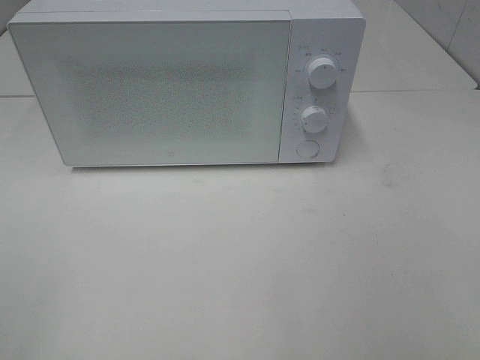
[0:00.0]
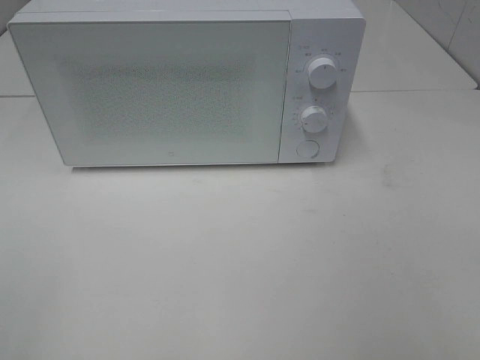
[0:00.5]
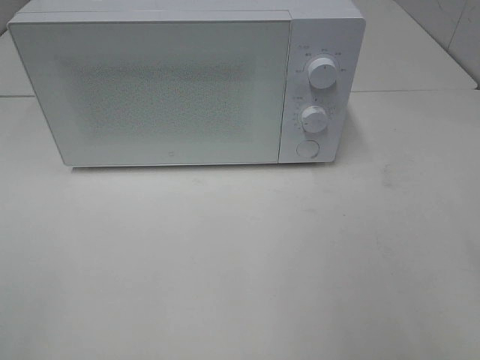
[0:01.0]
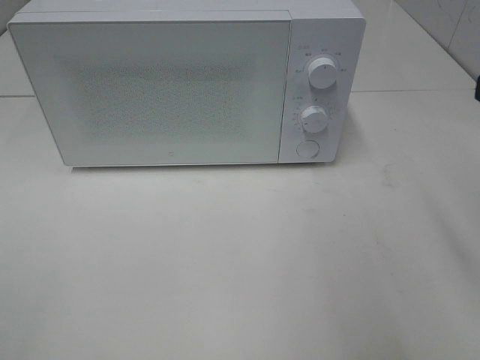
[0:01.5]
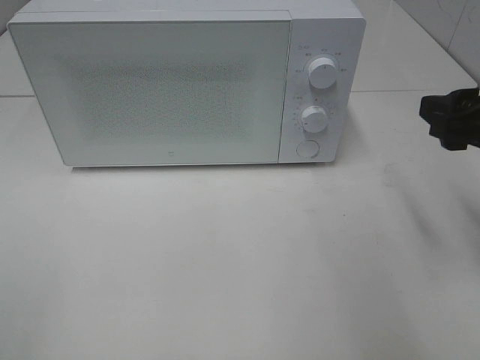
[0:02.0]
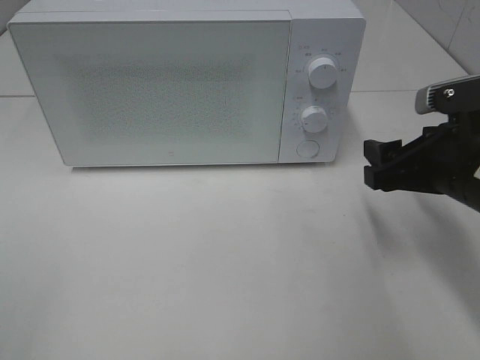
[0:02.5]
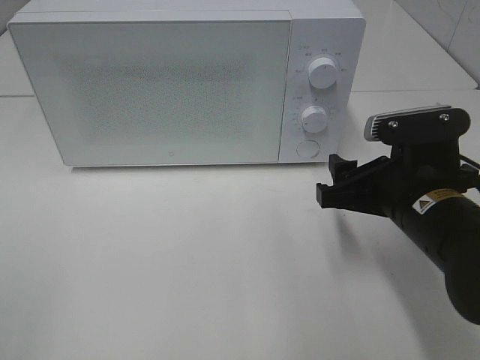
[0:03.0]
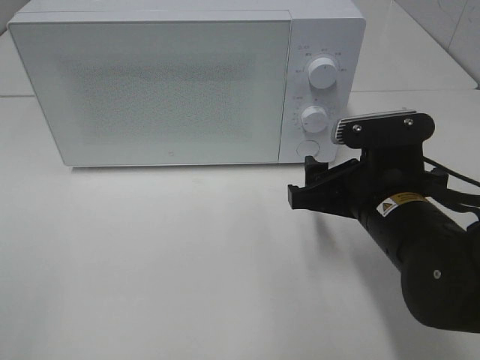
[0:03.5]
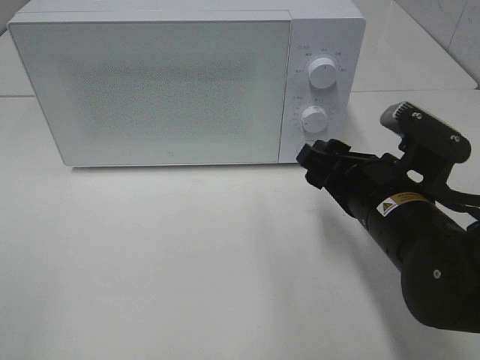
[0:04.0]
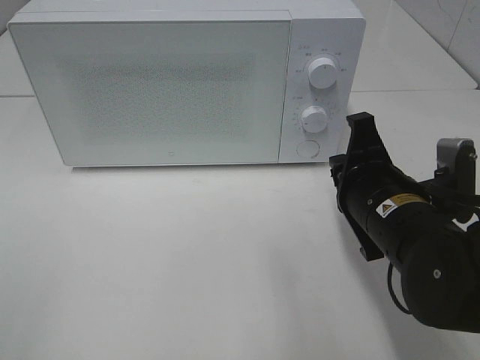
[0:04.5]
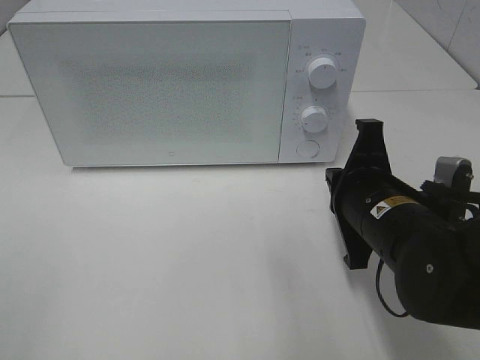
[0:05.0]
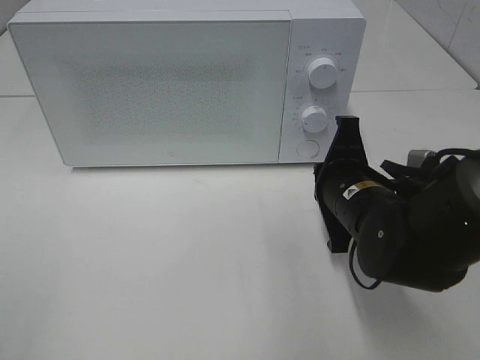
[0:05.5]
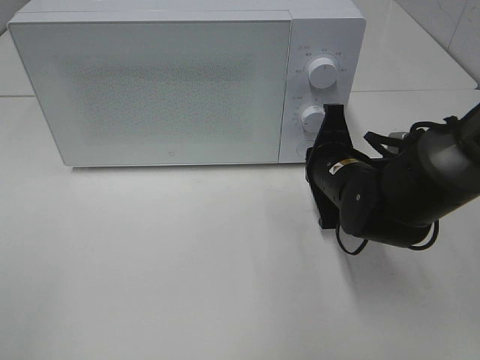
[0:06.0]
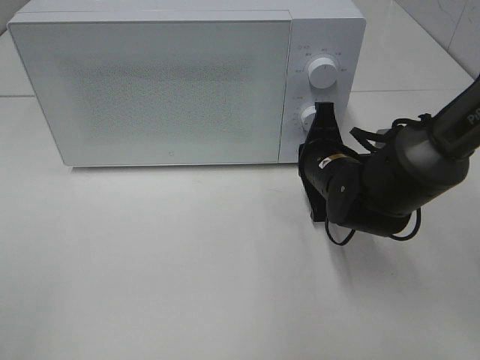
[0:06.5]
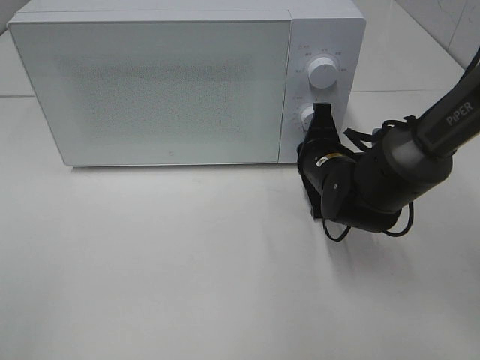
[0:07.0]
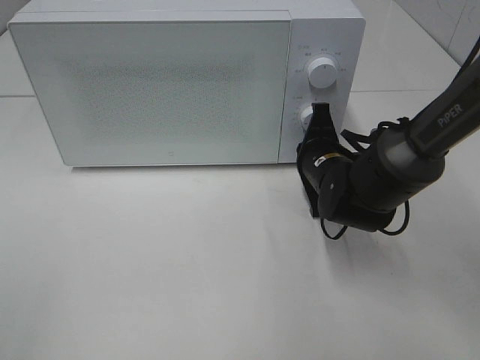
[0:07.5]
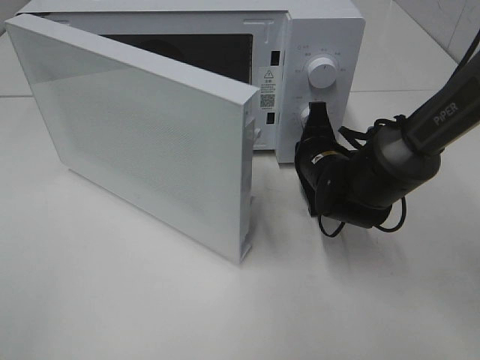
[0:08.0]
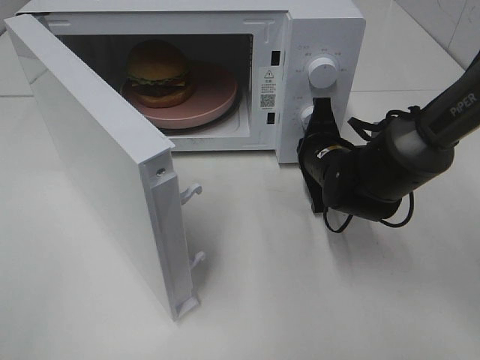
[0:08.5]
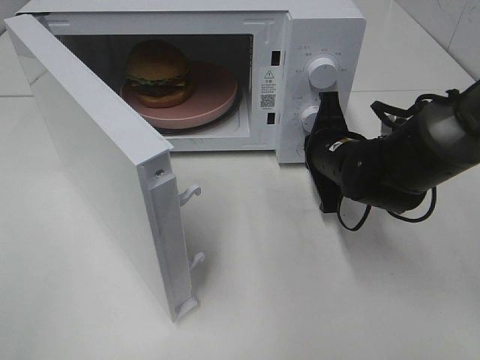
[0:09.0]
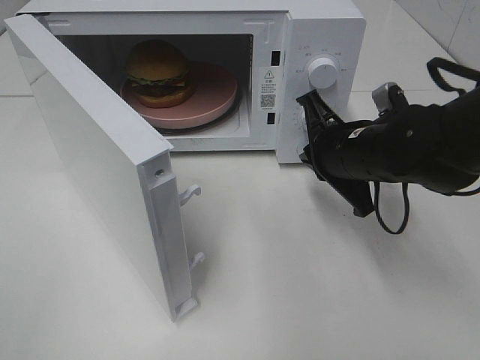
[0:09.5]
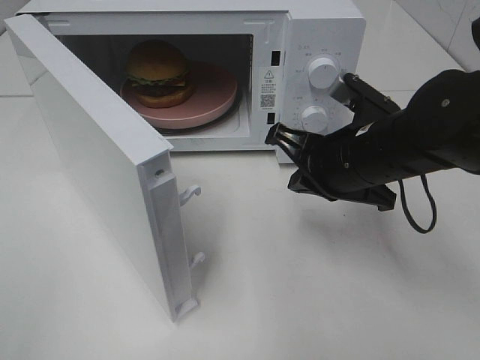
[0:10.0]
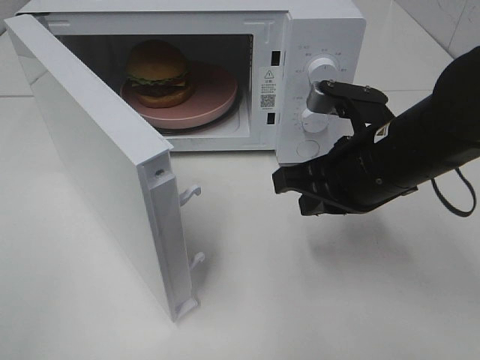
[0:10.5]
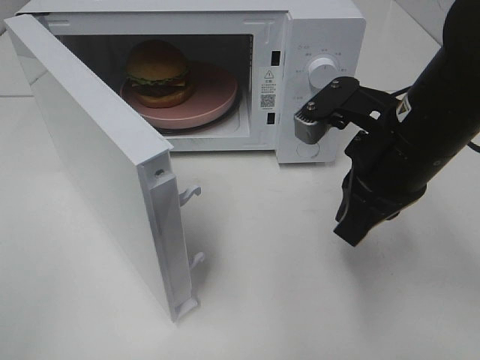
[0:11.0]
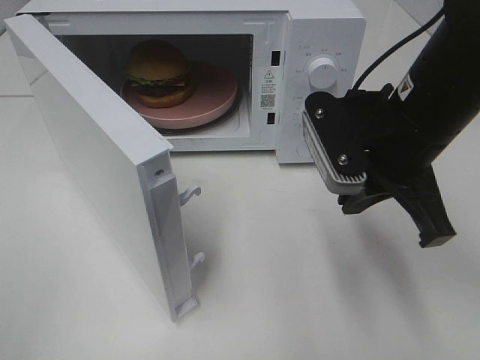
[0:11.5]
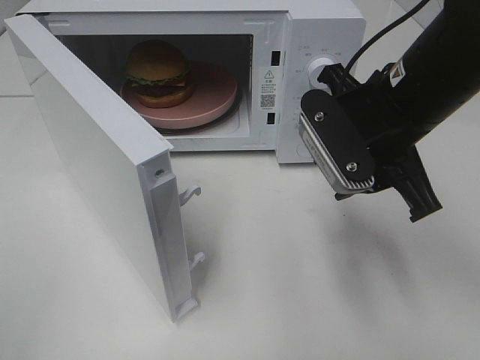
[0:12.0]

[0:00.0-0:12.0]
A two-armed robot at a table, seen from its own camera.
Task of the whole recording: Heat the burger.
Step, 0:00.0 to 0:09.0: Right hand: press the switch.
0:00.0 to 0:02.0: The right gripper moves forward, roughly 20 cm.
0:02.0 to 0:04.0: The right gripper is displaced to the left and downward by about 15 cm.
0:04.0 to 0:06.0: The right gripper shifts some 10 cm forward, and closes up.
0:06.0 to 0:08.0: The right gripper changes place by about 5 cm.
0:08.0 to 0:10.0: The right gripper heads upward and backward, covering approximately 10 cm.
0:10.0 to 0:12.0: The right gripper goes roughly 5 cm upward, and opens its fingers.

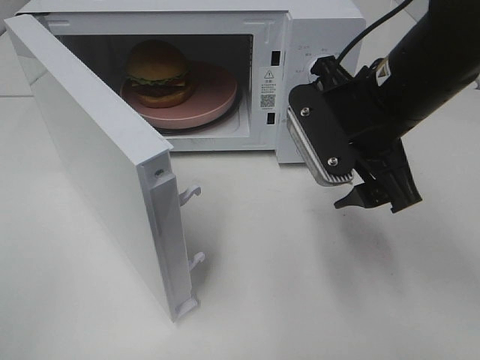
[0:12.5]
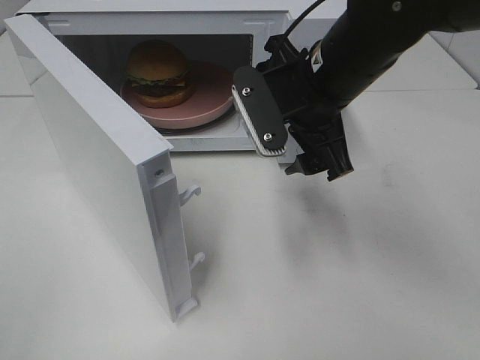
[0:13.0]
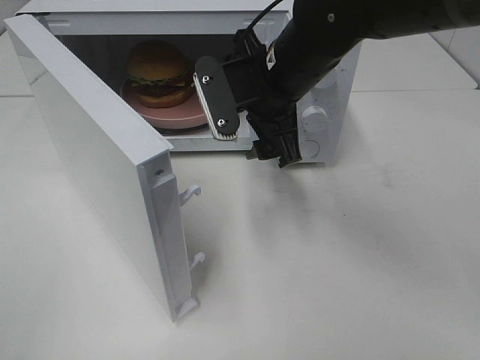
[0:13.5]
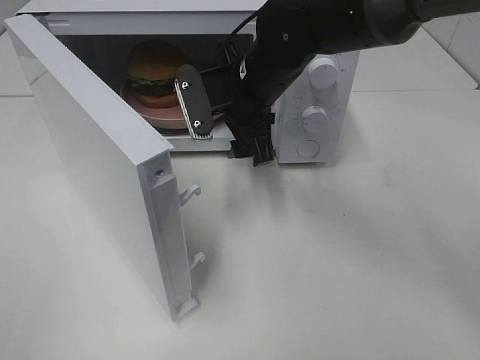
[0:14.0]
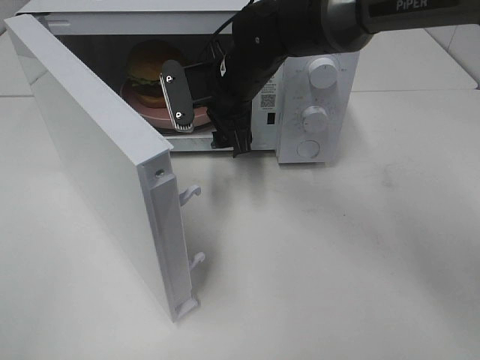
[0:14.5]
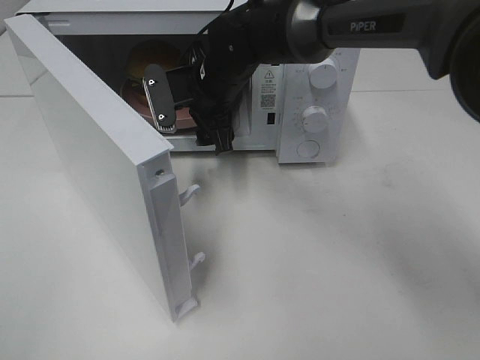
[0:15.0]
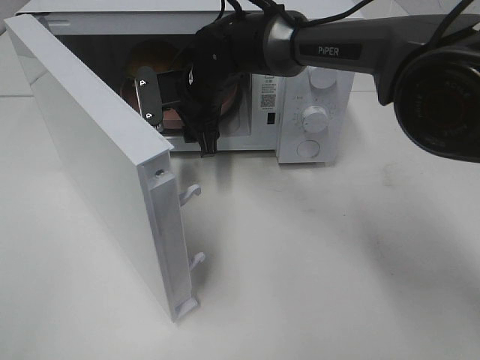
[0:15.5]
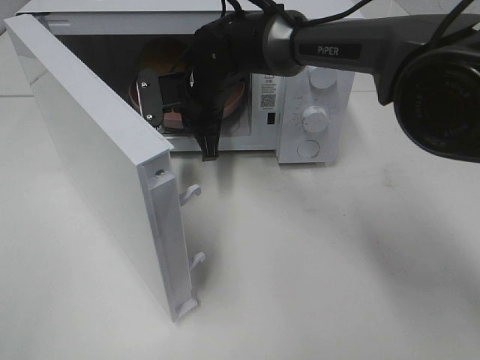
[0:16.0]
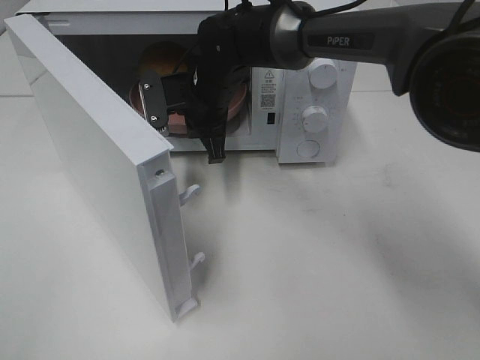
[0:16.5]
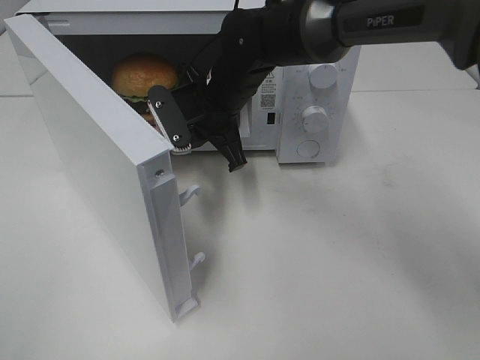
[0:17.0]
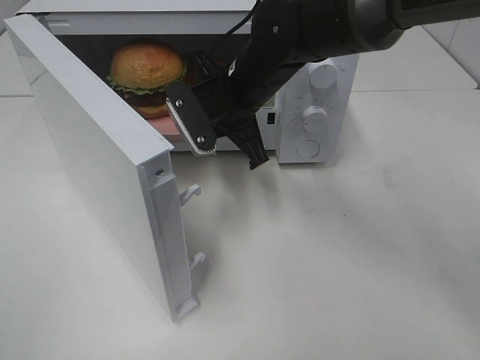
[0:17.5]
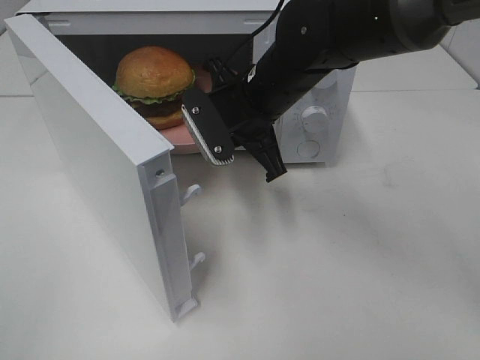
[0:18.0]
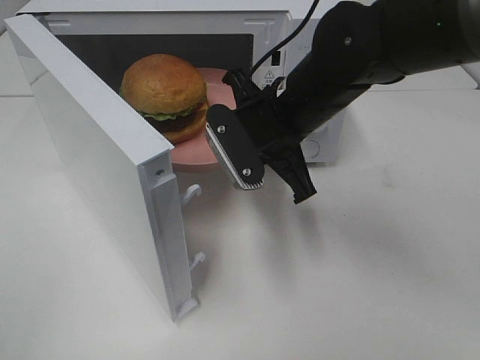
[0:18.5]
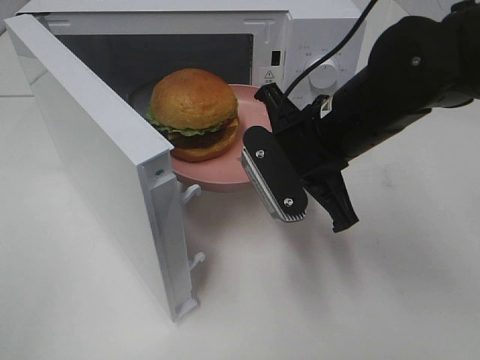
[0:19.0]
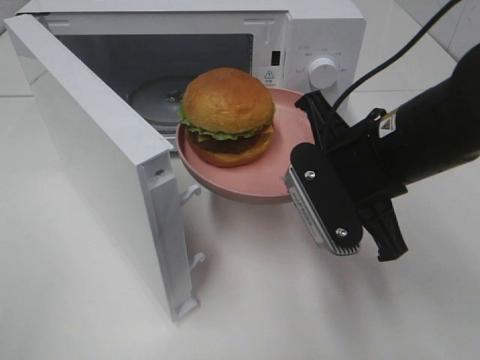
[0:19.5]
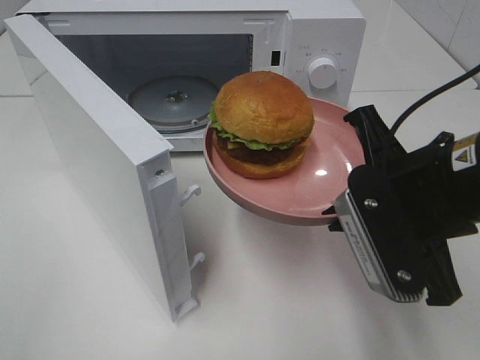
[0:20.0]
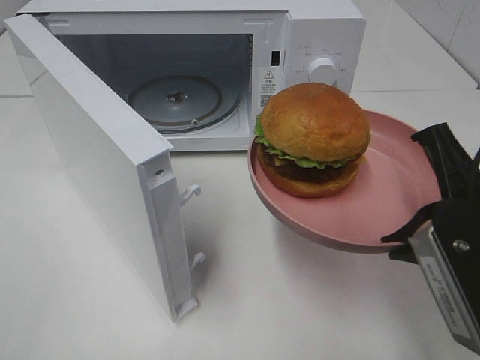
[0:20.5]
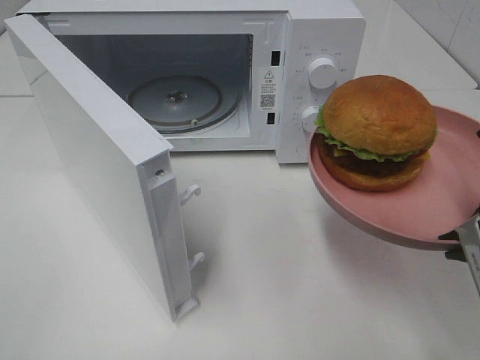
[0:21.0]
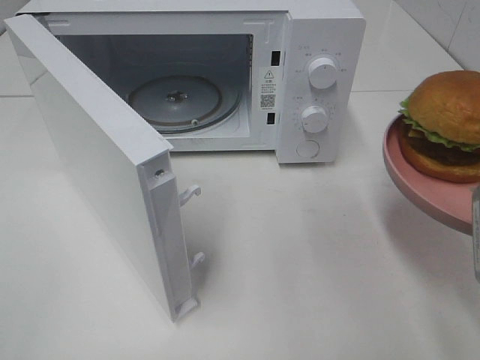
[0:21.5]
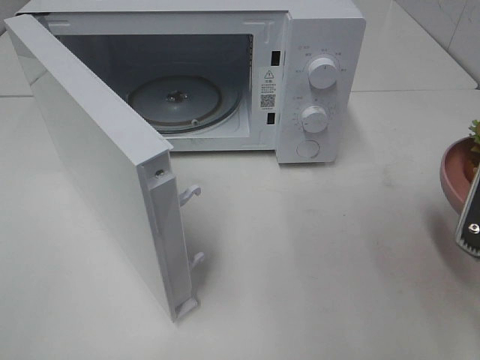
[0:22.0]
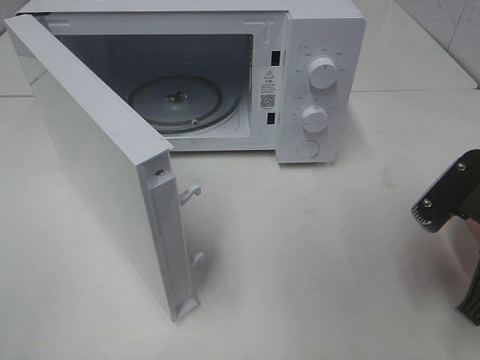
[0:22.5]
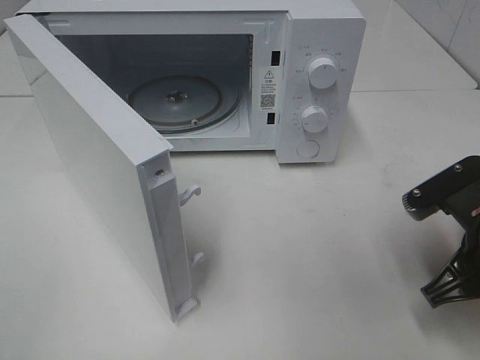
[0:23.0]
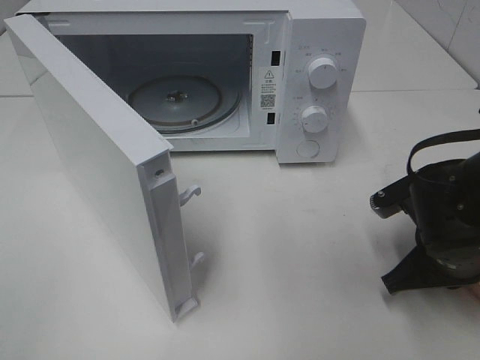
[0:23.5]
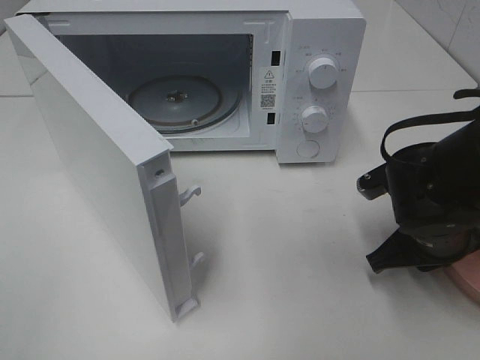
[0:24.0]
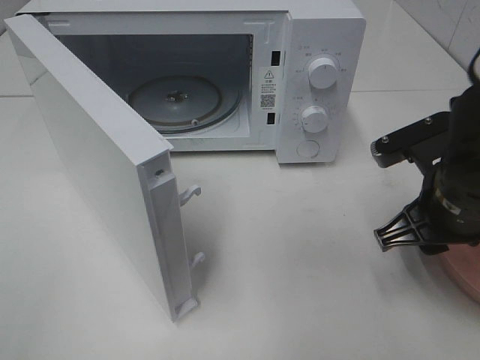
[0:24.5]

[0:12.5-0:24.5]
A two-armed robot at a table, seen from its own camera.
Task of the whole recording: Heat the burger.
Step, 0:12.5 to 0:16.0: Right hand: grab the plate with the hamburger.
Step, 0:16.5 to 0:23.5: Right hand: place the plate on the table.
0:12.5 to 0:14.5: The right gripper is displaced forward, to the left and downward by about 20 cm.
0:14.5 to 0:16.5: The right gripper closes its fingers.
0:16.5 to 0:18.5: The right gripper goes about 15 cm backward and to the right.
0:18.5 to 0:20.5: The right gripper travels backward and to the right by roughly 20 cm.
0:20.5 to 0:22.5: The right gripper heads downward, covering roughly 5 cm.
0:22.5 to 0:24.5: The right gripper travels forward by some 5 cm, and opens up.

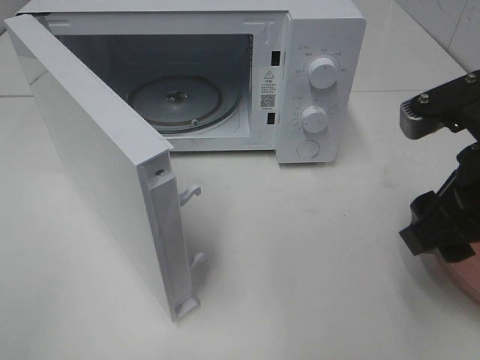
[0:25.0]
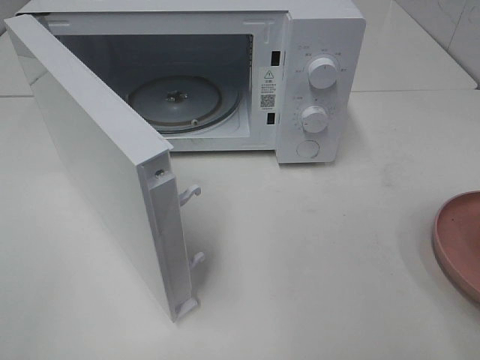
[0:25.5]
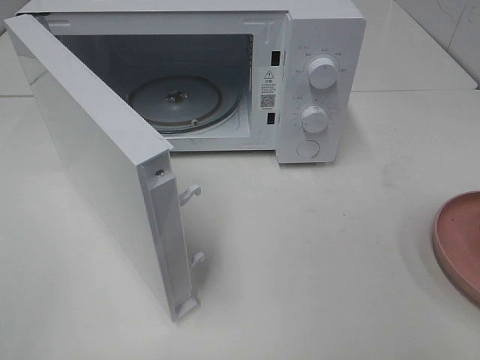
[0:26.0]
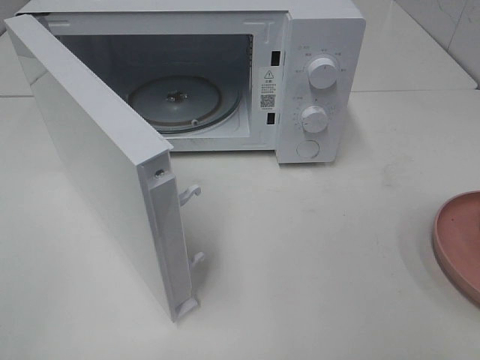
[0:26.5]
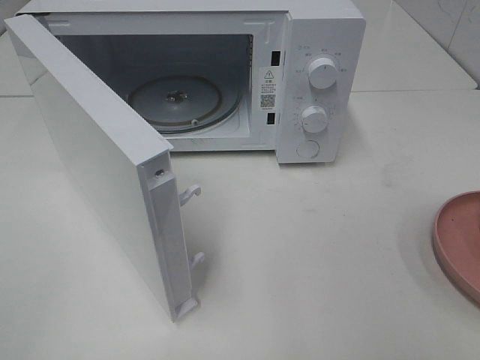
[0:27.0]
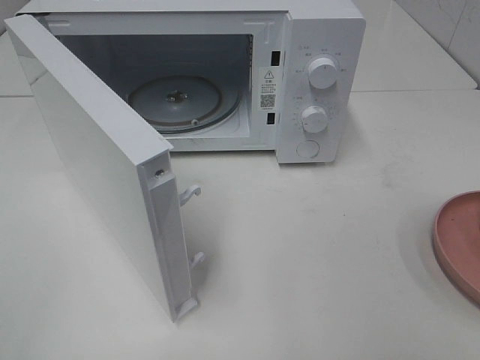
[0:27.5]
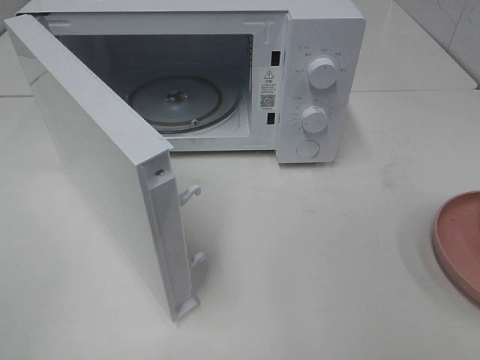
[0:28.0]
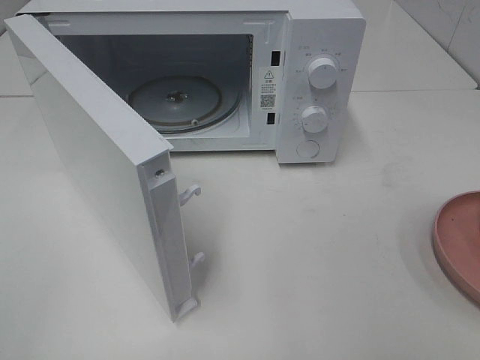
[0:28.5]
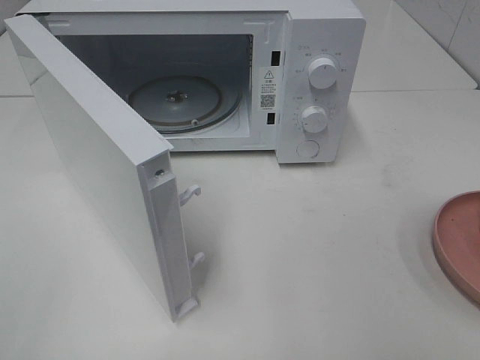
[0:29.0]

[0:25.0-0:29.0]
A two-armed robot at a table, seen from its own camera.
Task of the whole recording: Heat the burger.
0:25.0 to 0:27.0: The right gripper shifts some 20 cm backward and to the right.
0:27.0 to 0:29.0: Neither gripper changes place.
